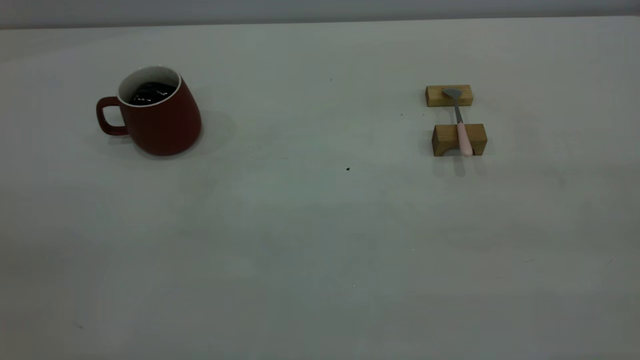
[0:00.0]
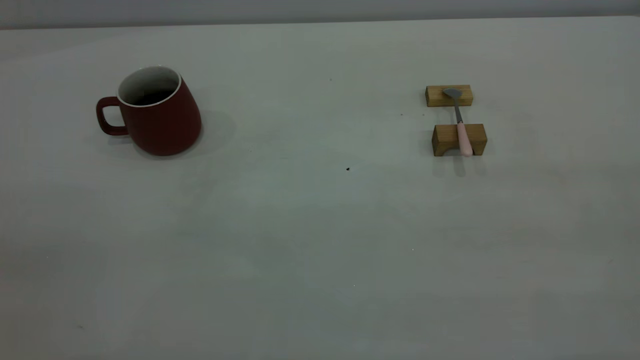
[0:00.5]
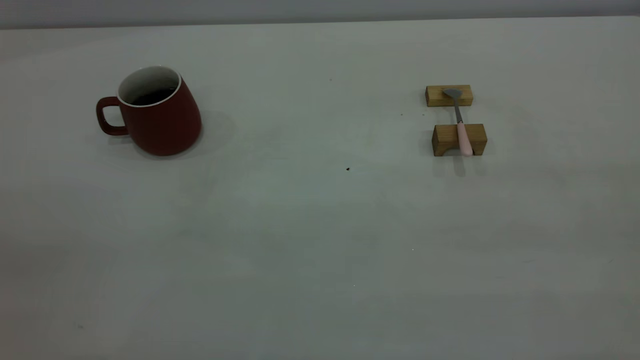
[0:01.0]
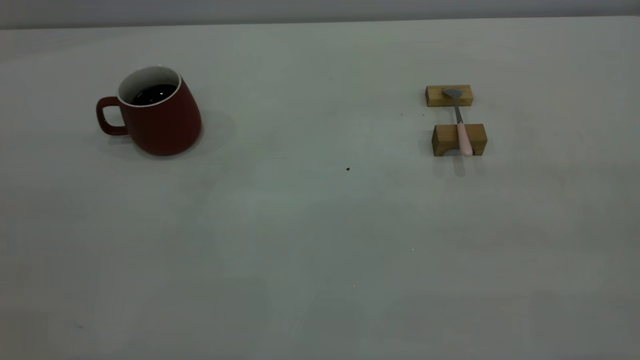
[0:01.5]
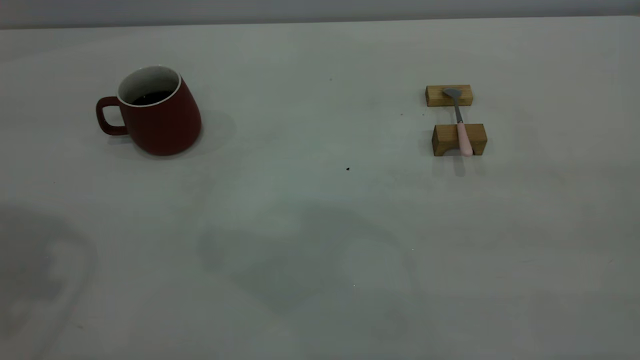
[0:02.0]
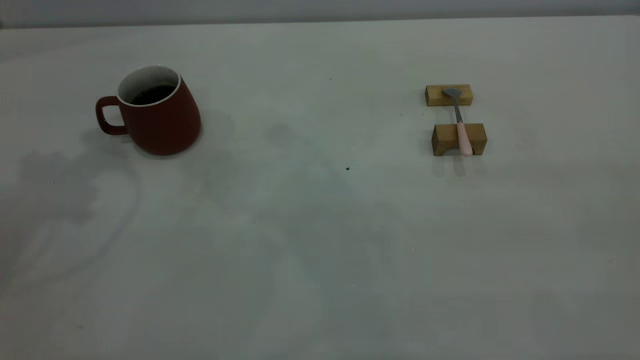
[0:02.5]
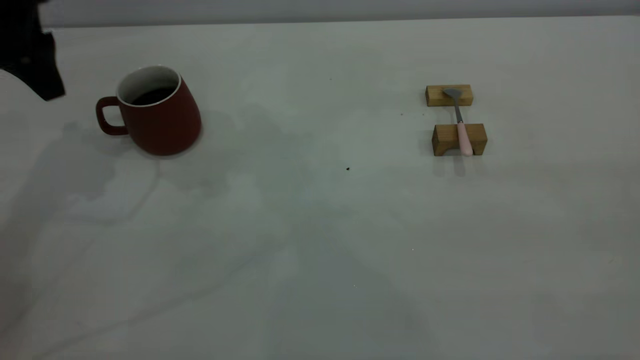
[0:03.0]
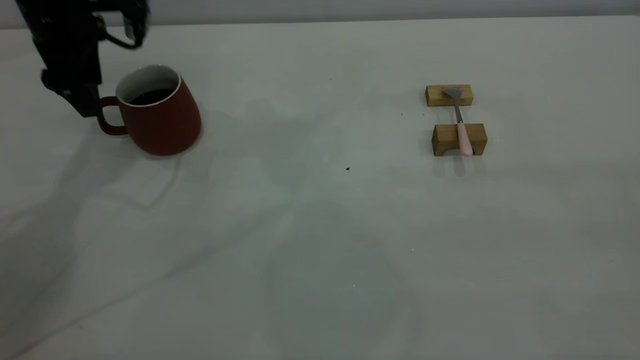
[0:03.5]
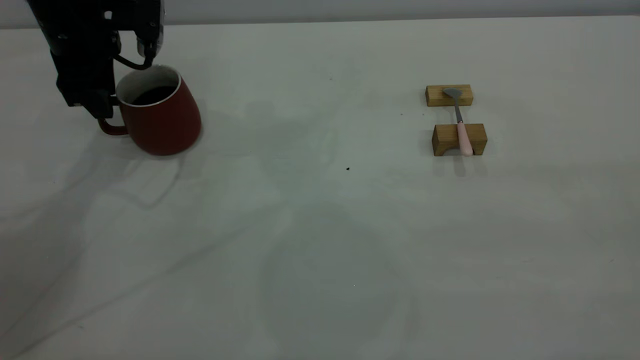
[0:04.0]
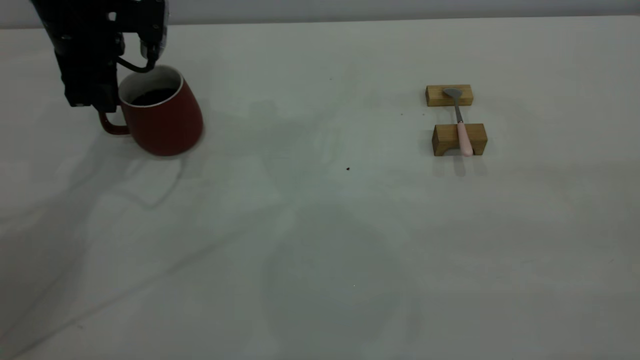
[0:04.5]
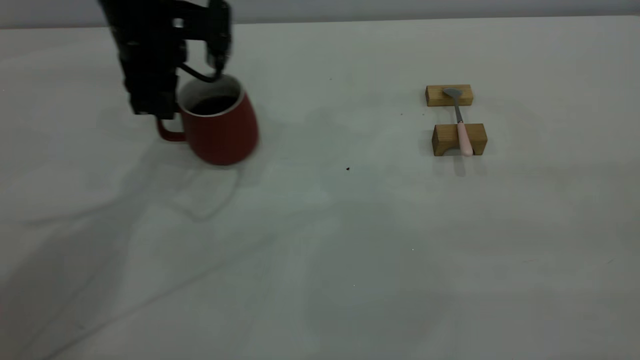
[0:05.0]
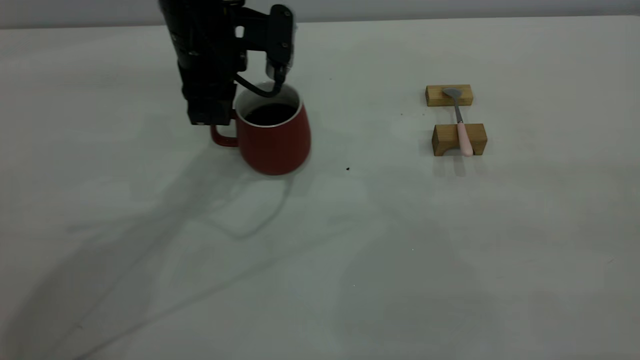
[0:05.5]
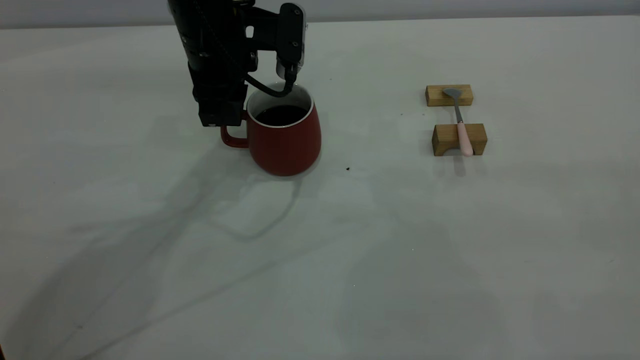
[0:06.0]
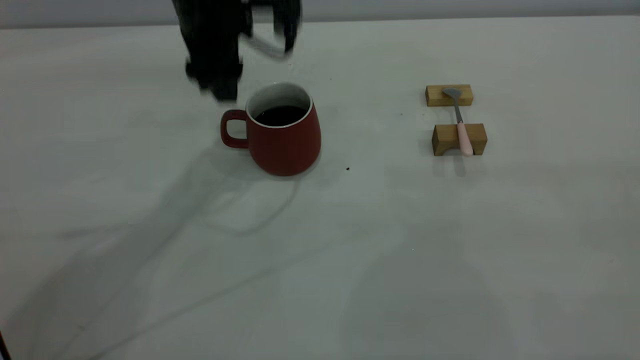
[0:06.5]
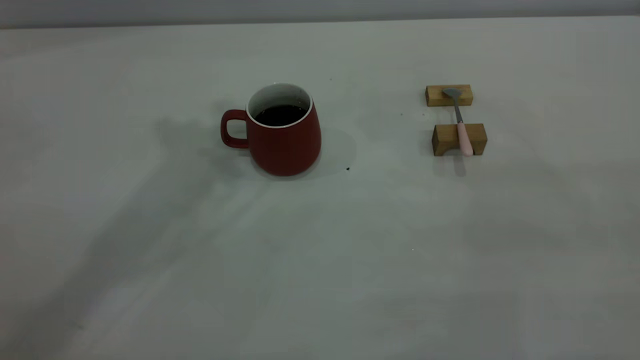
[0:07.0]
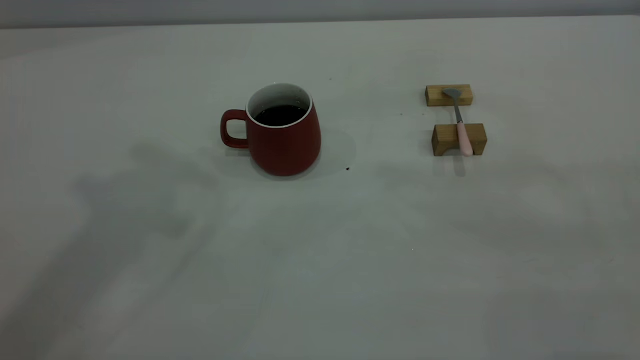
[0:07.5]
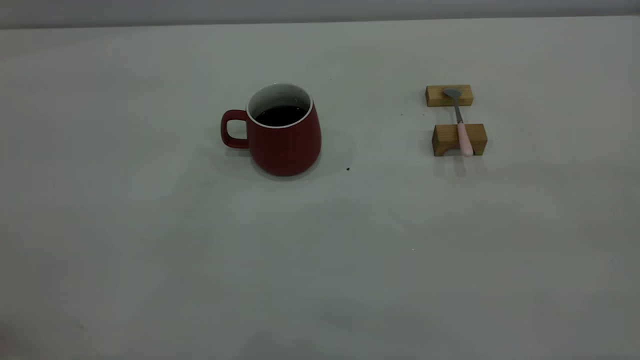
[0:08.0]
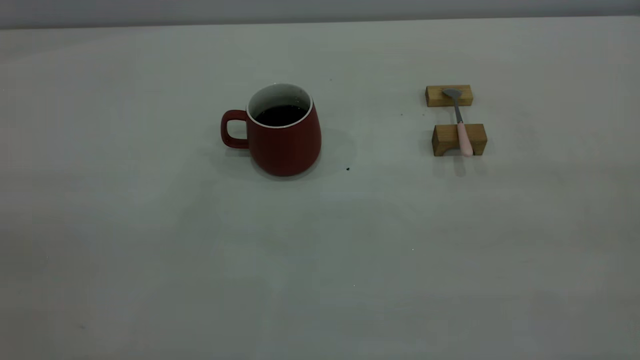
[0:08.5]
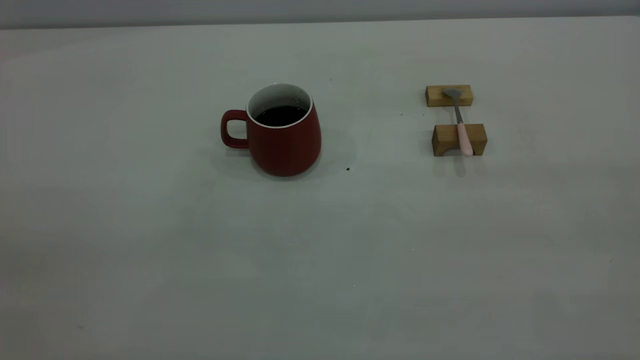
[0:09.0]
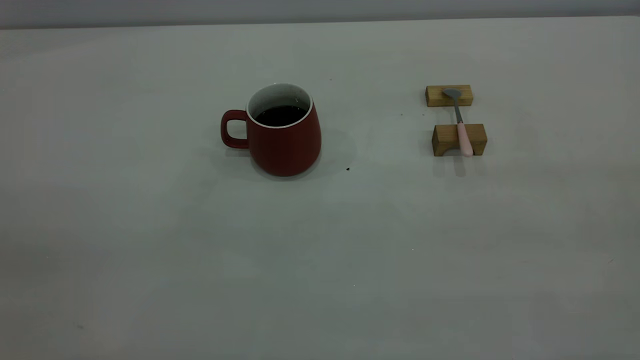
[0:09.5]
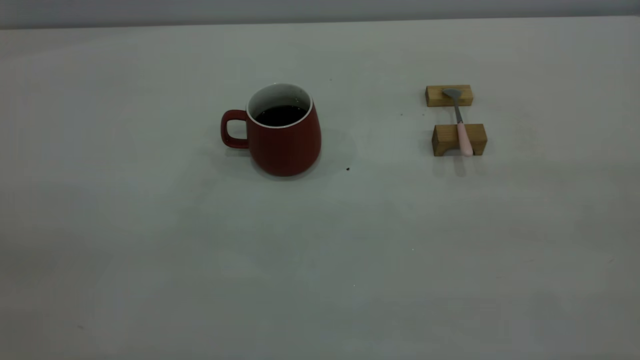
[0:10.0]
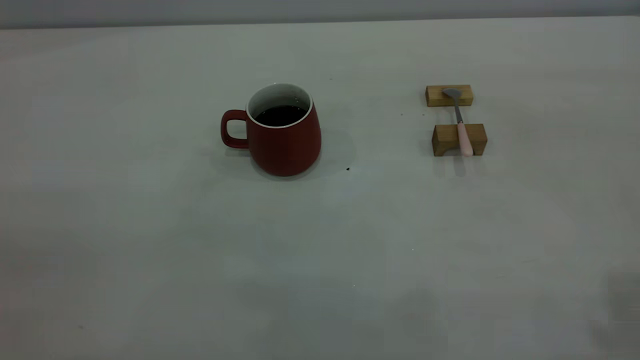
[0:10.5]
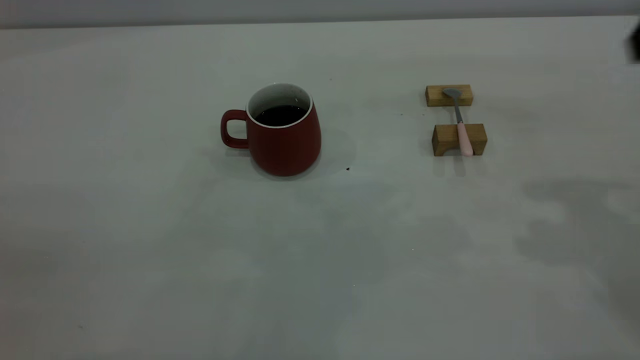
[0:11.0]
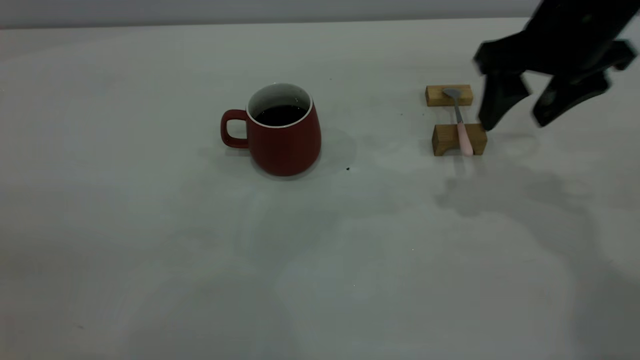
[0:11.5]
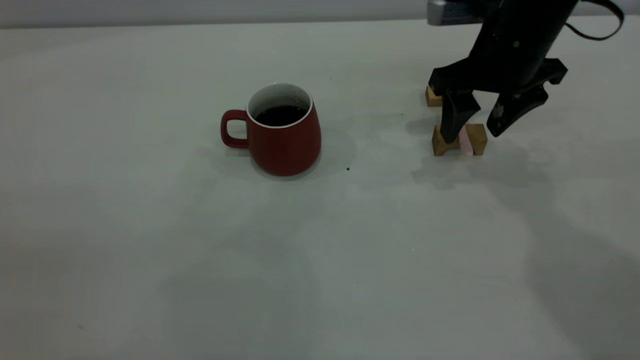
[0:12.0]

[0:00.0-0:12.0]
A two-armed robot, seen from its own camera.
Step, 0:00.0 to 0:06.5: Move the cup with coffee to the center of view.
0:02.0 to 0:04.0: The left gripper goes approximately 30 cm downward and forward.
0:04.0 to 0:06.0: The left gripper is displaced to the right by roughly 15 cm, and closes up.
0:06.0 to 0:08.0: The left gripper travels backward, upward and to the left by some 50 cm, and opens.
0:10.0 to 0:12.0: The right gripper travels forward and downward by roughly 50 cm, and opens its fingers.

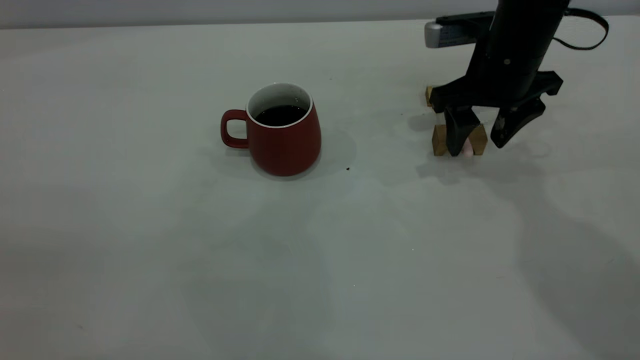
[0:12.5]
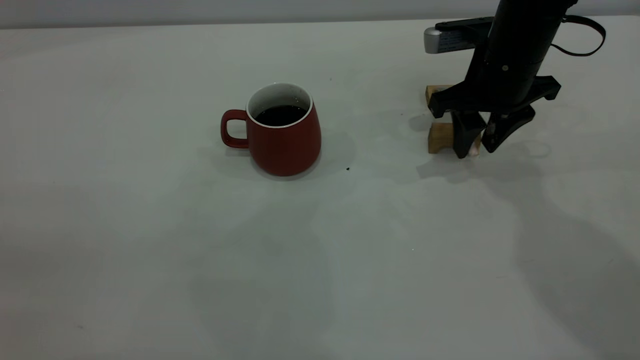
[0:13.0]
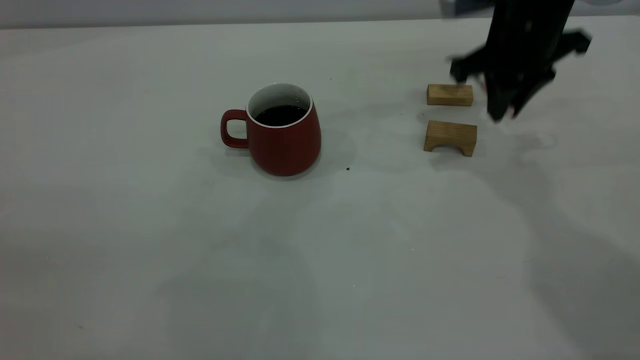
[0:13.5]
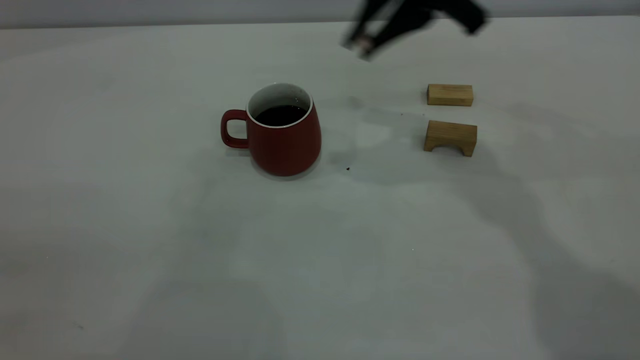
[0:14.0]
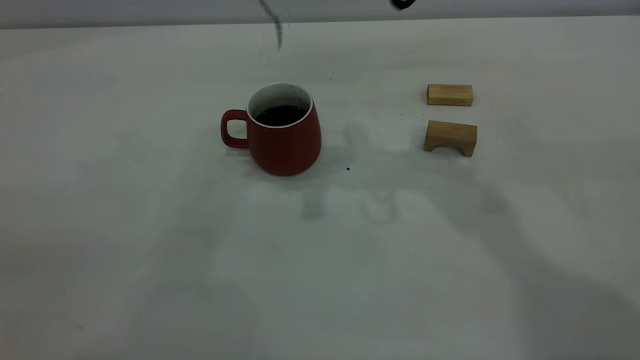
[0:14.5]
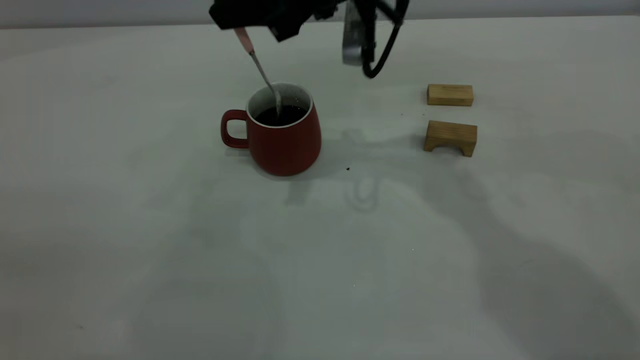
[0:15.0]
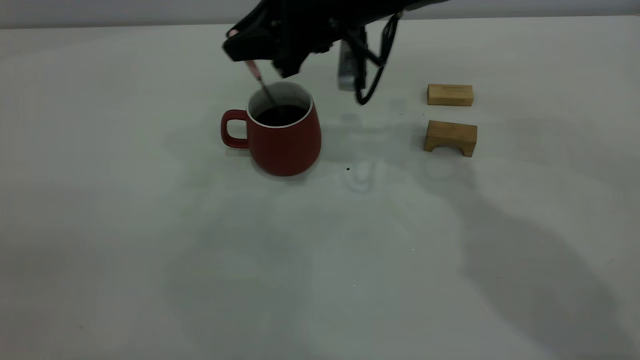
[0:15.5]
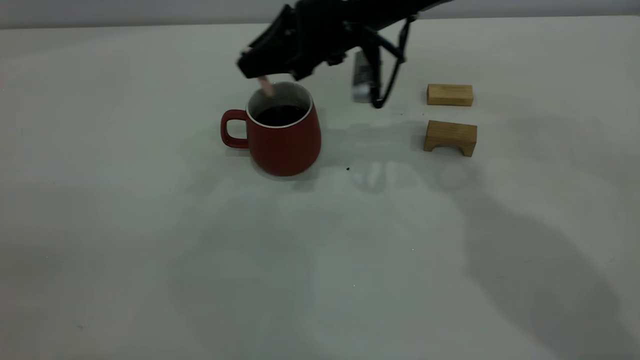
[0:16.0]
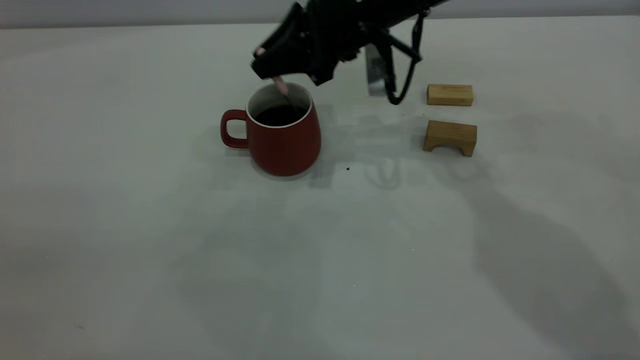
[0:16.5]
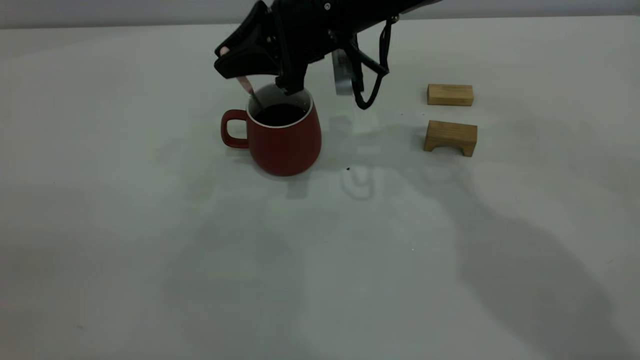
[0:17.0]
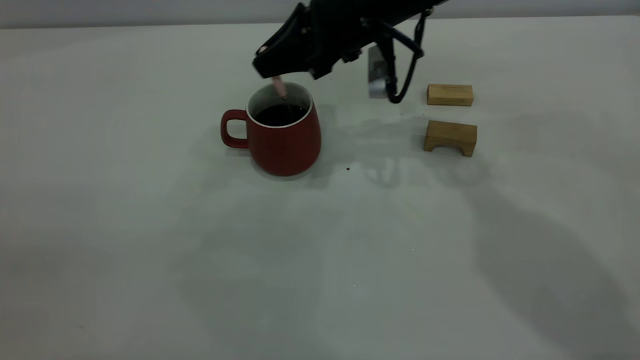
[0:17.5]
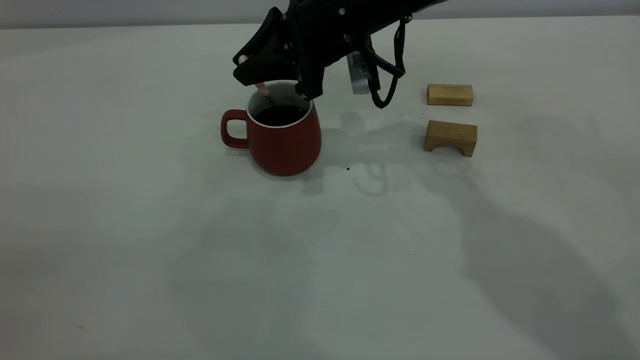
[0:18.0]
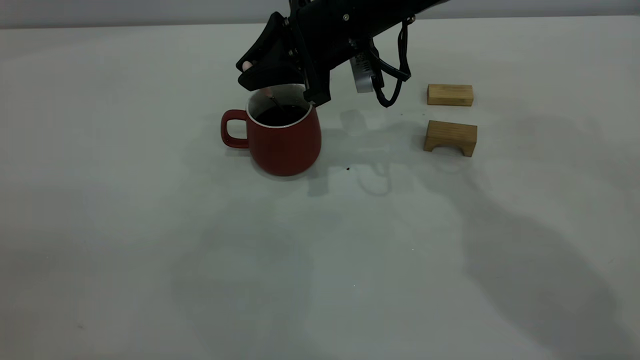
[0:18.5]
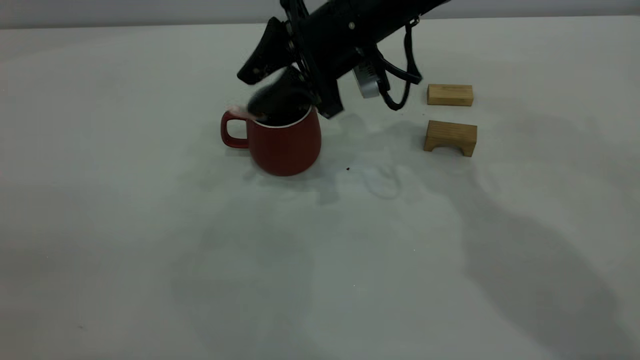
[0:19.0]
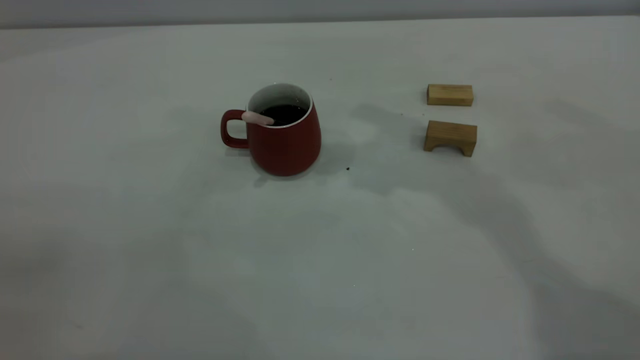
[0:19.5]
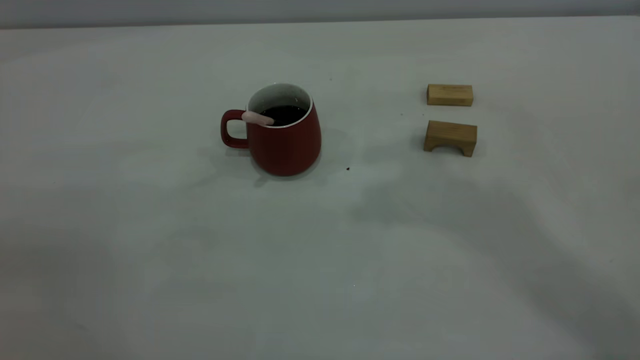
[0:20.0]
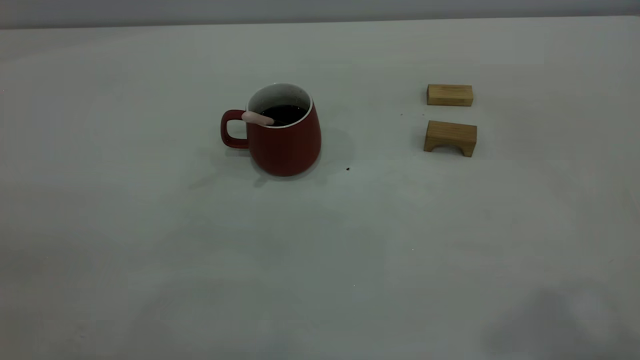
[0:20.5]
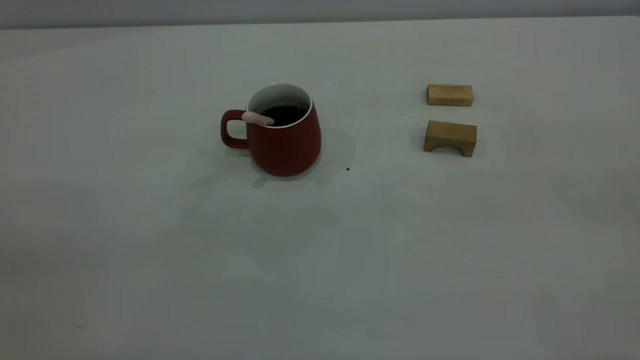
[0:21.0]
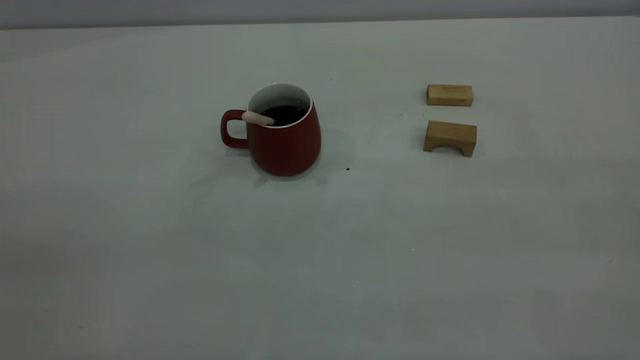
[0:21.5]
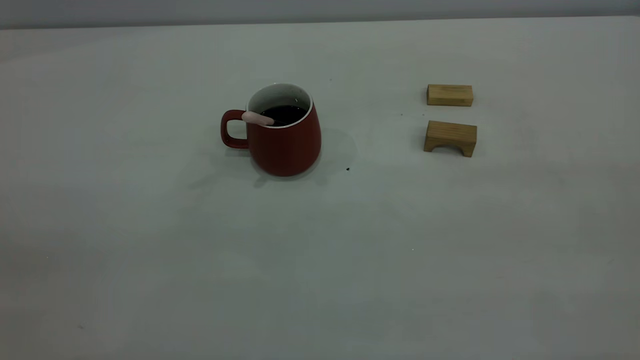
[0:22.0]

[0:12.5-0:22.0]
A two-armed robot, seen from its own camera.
Step, 0:13.5 to 0:19.0: Stir the coffee in the cup.
0:12.5 to 0:14.5: The right gripper is displaced upward and to the left by approximately 20 cm, and closes up.
0:14.5 to 0:16.5: The right gripper moves downward and forward, about 15 cm.
0:16.5 to 0:18.0: The grippers move only a little.
0:18.0 to 0:20.0: The right gripper heads upward, covering approximately 35 cm, and opens.
